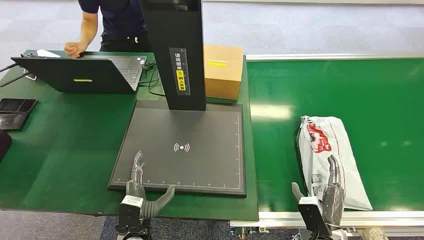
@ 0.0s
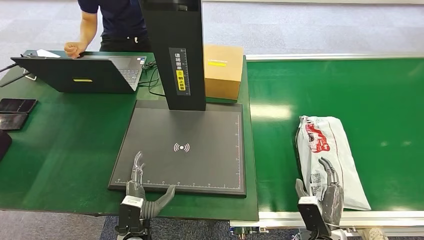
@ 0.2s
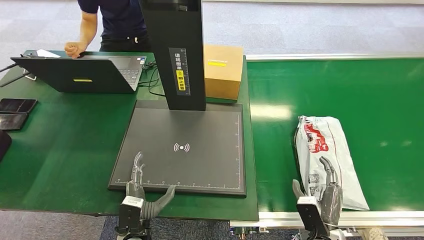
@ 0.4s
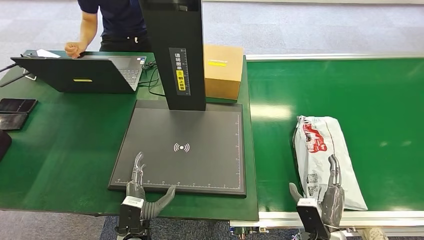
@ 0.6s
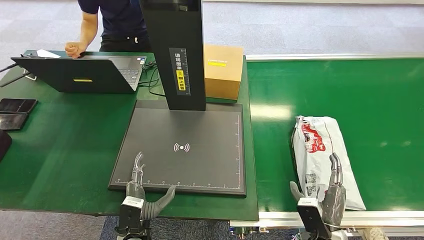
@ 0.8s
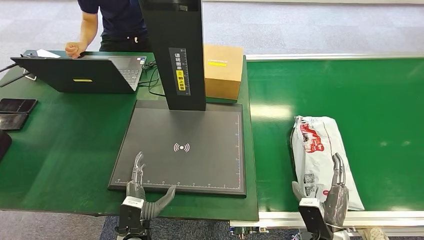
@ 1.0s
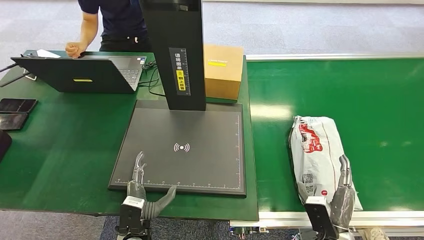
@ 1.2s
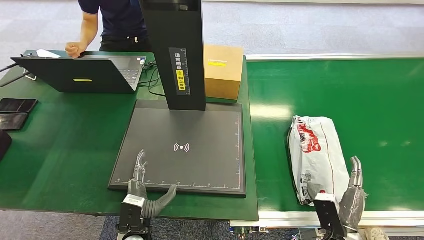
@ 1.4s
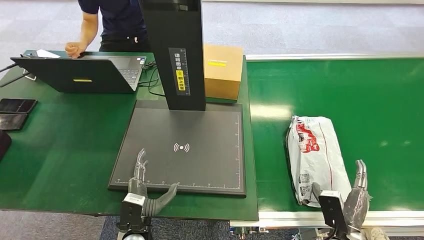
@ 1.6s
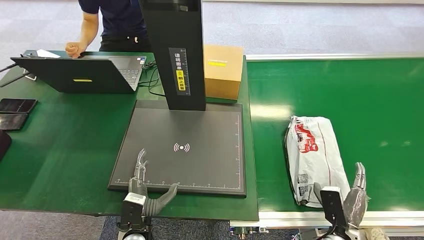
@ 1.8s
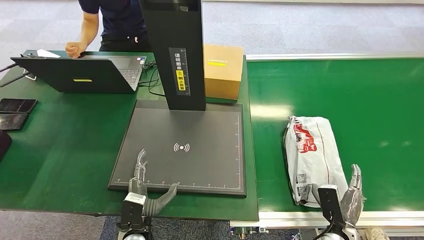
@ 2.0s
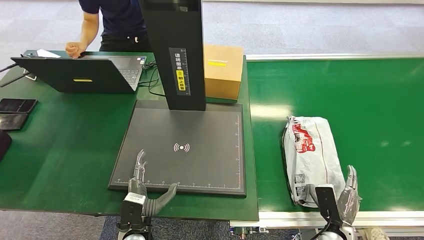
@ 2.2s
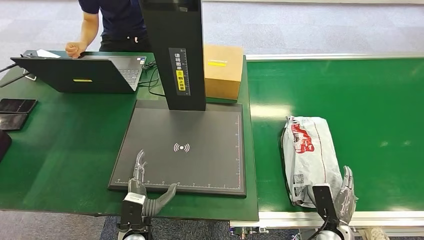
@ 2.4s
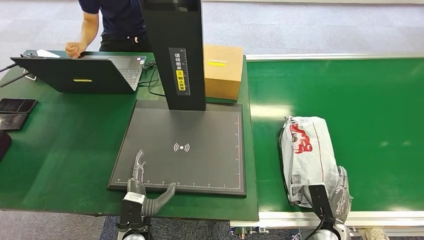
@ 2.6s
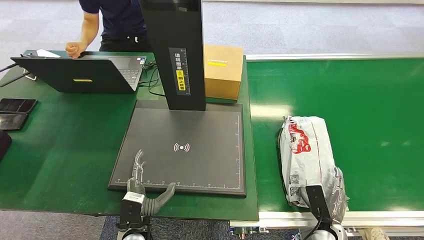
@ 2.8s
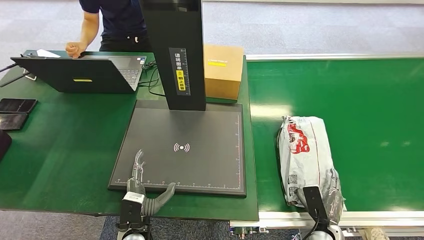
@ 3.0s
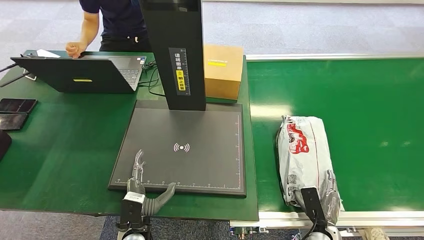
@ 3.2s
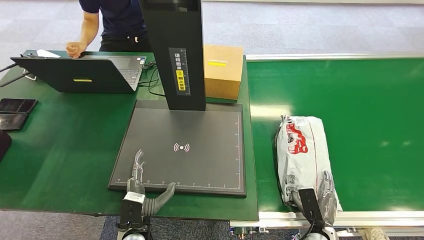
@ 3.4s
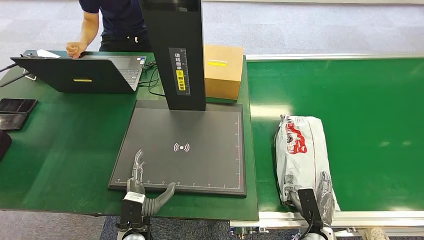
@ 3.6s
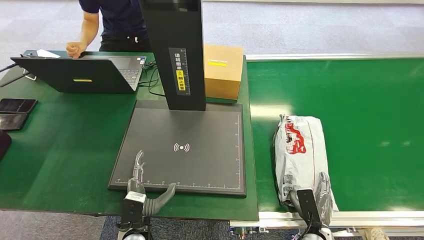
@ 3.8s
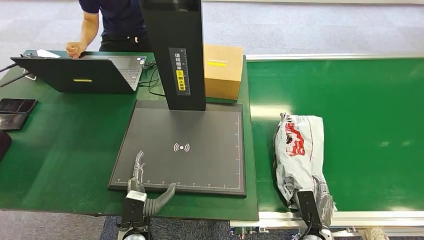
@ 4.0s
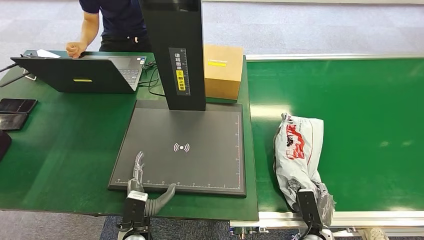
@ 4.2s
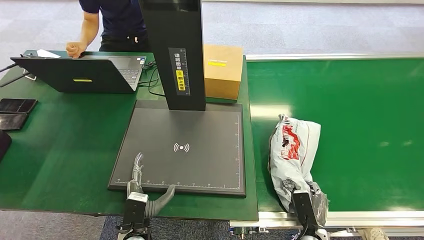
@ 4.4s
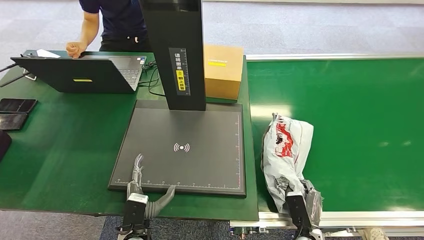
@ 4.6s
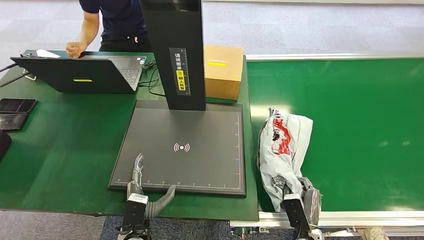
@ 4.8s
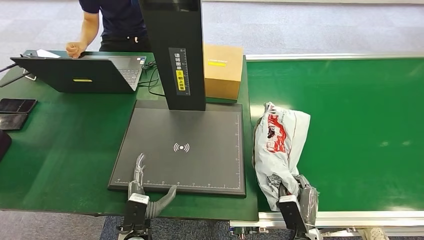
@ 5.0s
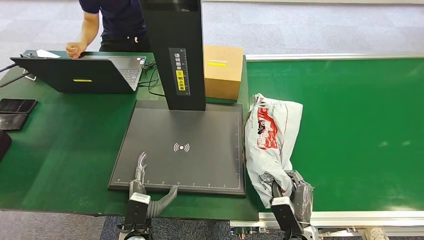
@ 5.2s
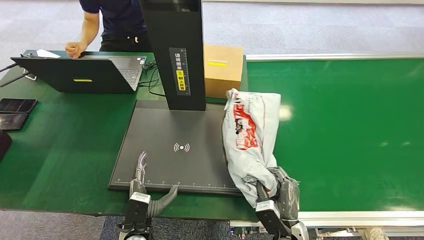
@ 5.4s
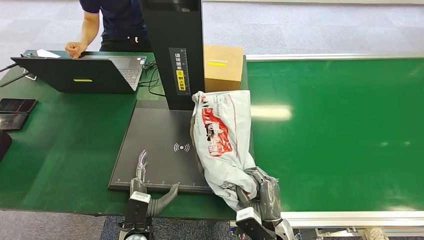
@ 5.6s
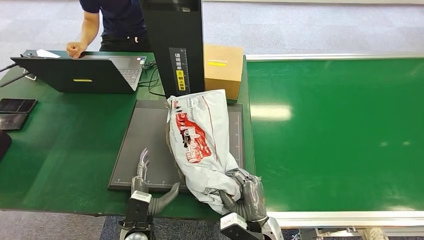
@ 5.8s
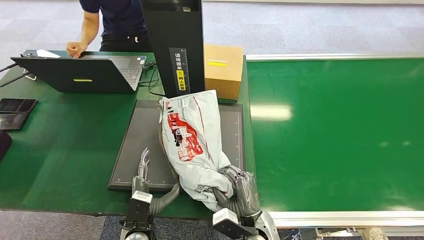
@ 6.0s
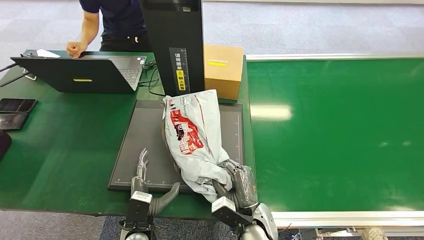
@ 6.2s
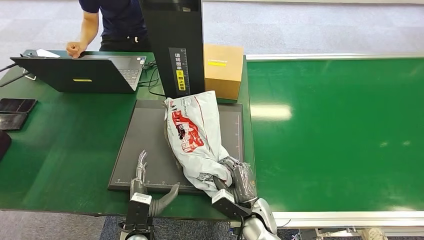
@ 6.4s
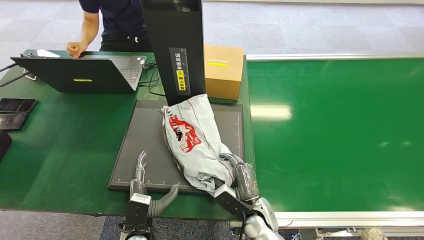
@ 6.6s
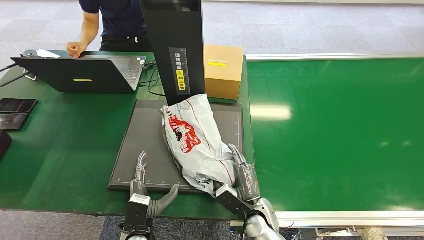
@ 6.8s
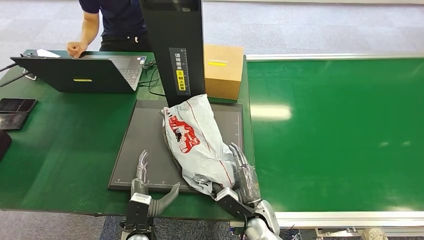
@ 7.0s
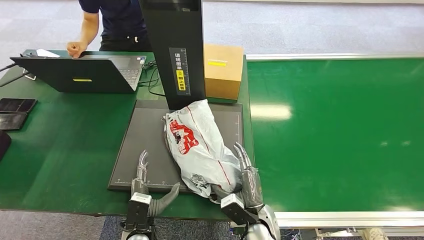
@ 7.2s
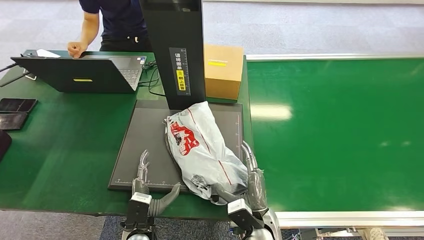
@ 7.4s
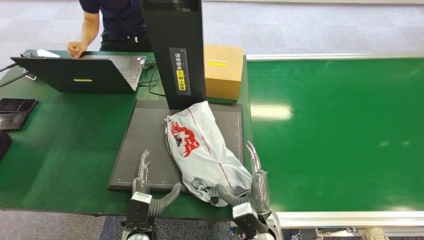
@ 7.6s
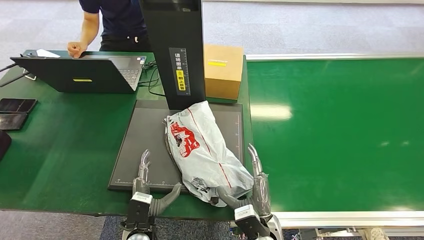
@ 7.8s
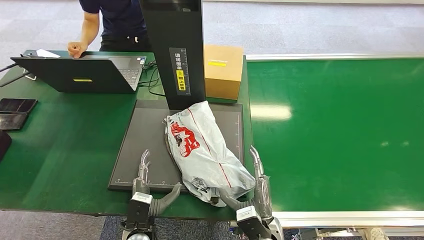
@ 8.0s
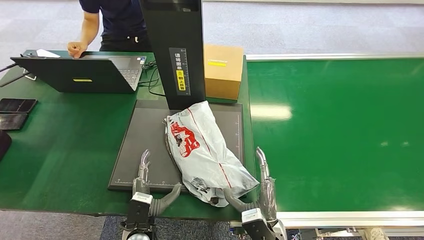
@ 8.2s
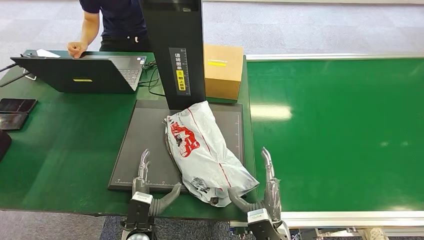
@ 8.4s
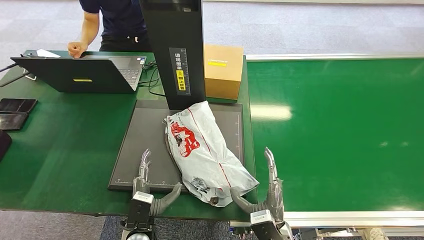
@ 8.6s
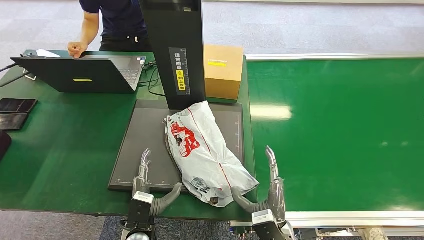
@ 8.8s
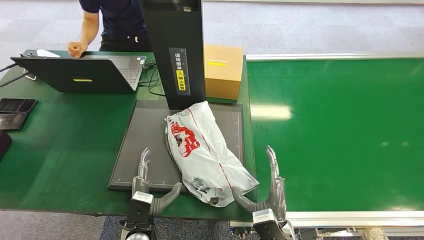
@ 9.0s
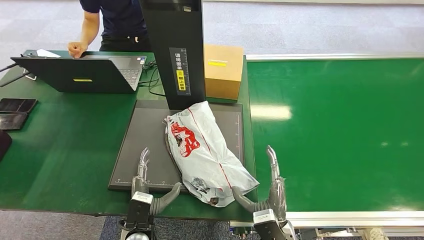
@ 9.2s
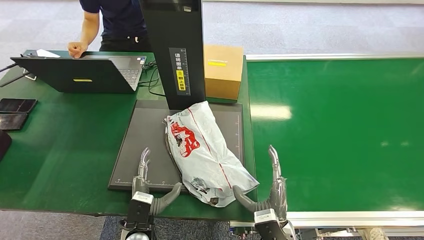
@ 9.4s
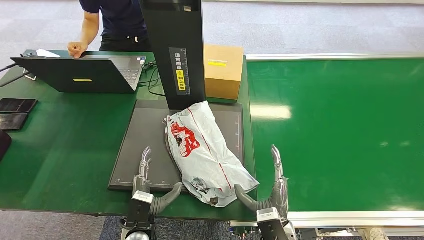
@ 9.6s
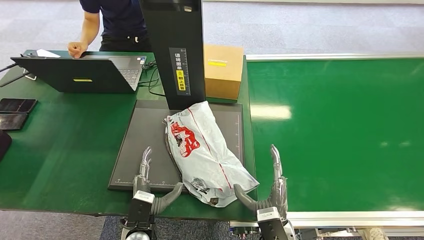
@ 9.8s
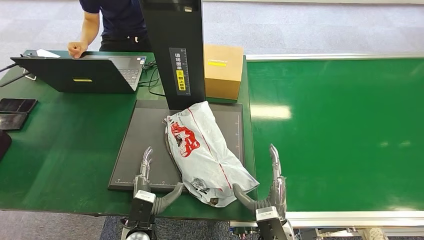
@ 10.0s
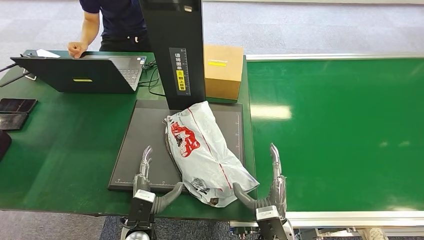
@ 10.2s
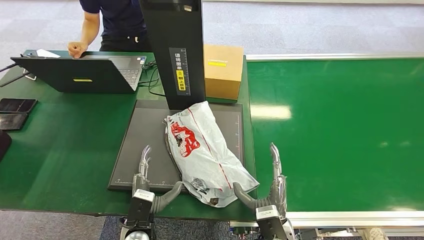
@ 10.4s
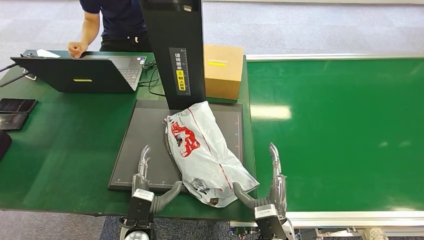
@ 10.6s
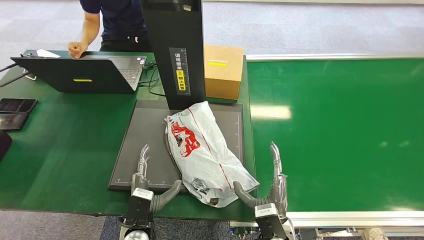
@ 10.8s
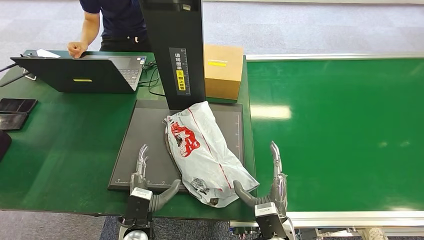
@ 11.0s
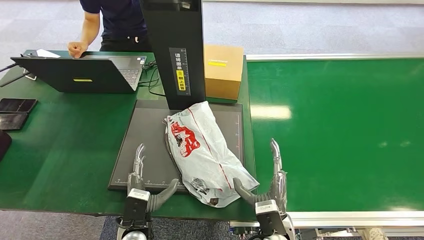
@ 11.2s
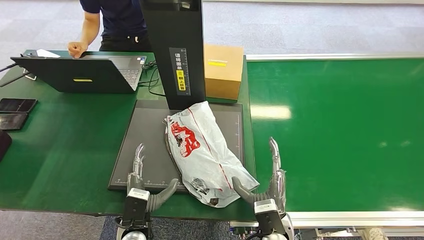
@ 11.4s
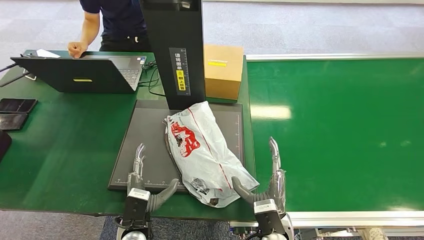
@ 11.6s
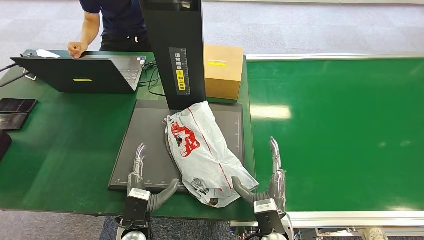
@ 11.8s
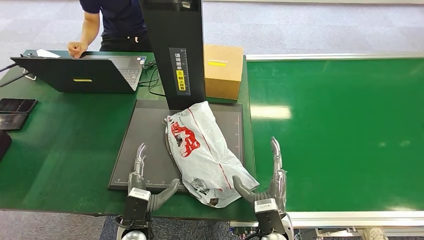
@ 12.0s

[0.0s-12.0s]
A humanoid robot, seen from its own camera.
Step, 0.0s to 5.2s: Pick up the package from the conveyor belt.
Step, 5.4s to 8.4s: Place the package onto the inbound machine.
1.6s to 3.0s: The right hand is displaced downward by roughly 10 cm.
3.0s to 4.4s: There are only small adjustments of the hands.
4.4s to 6.0s: The right hand travels to the left and upward by roughly 20 cm.
7.6s to 9.0s: The hands move only a little.
9.0s to 10.4s: Both hands stay put.
10.4s to 12.0s: The hands stay close to where they were, moving slightly.

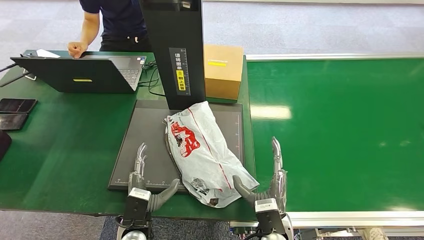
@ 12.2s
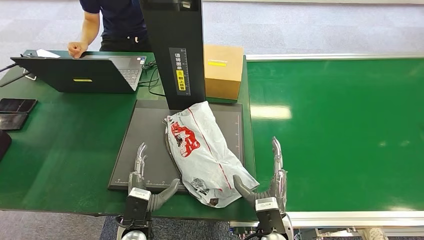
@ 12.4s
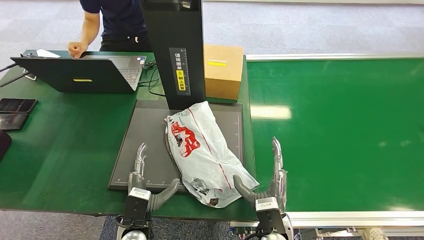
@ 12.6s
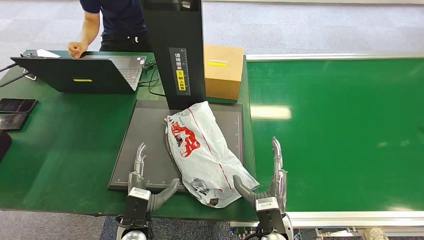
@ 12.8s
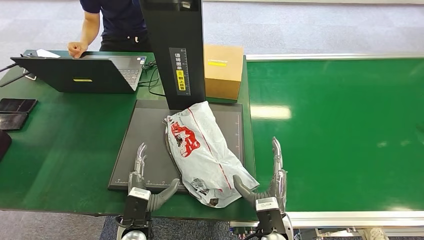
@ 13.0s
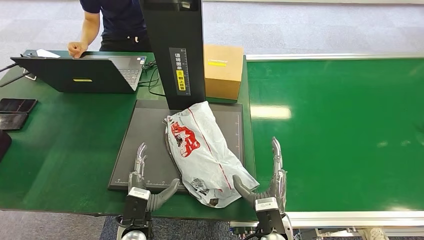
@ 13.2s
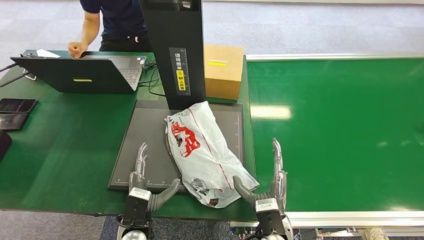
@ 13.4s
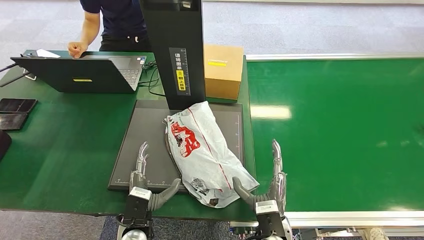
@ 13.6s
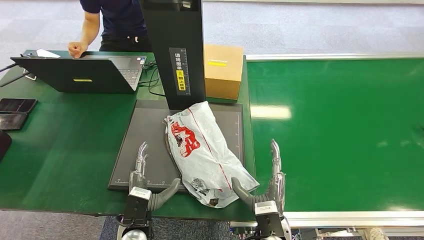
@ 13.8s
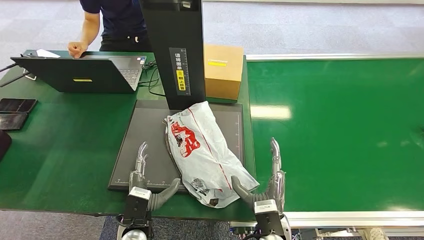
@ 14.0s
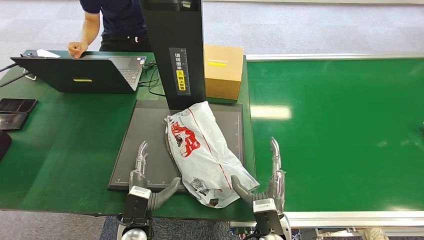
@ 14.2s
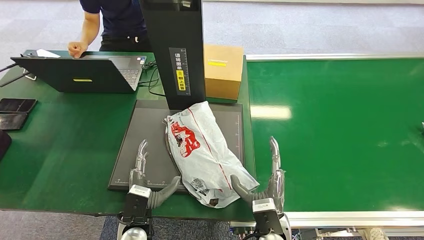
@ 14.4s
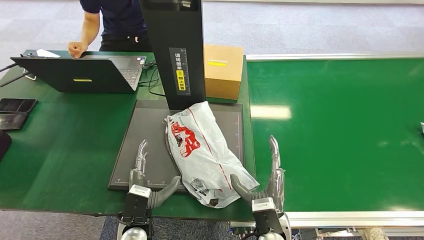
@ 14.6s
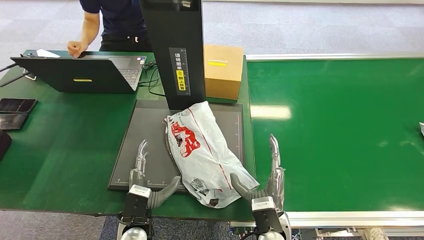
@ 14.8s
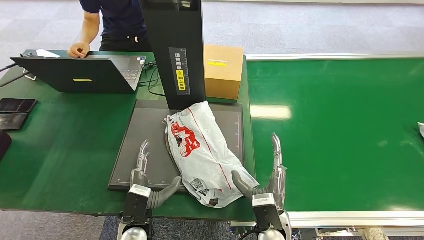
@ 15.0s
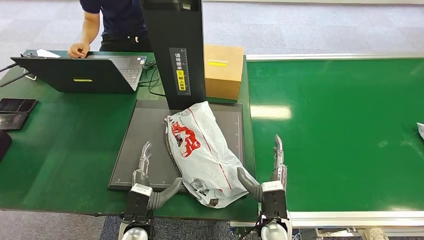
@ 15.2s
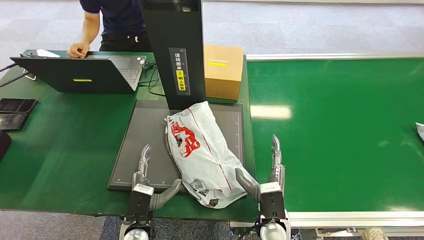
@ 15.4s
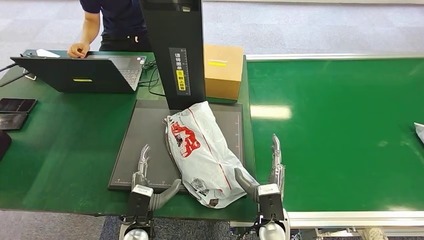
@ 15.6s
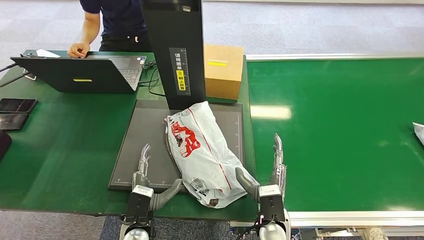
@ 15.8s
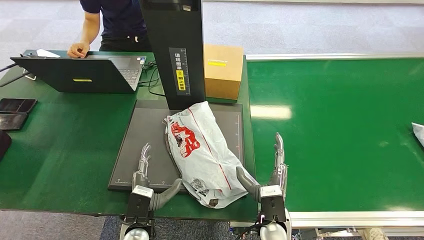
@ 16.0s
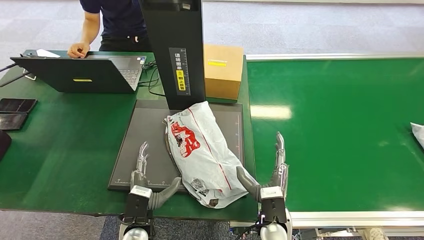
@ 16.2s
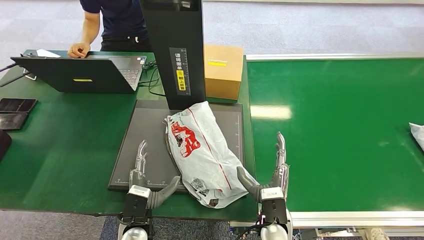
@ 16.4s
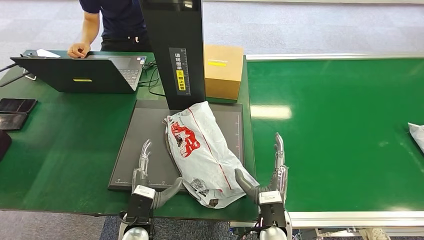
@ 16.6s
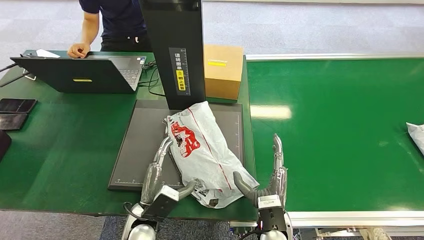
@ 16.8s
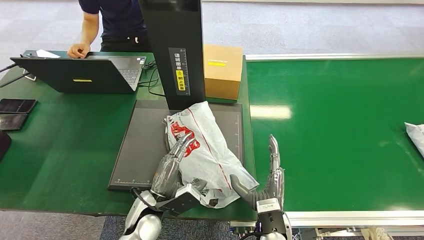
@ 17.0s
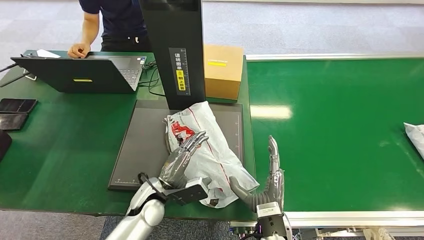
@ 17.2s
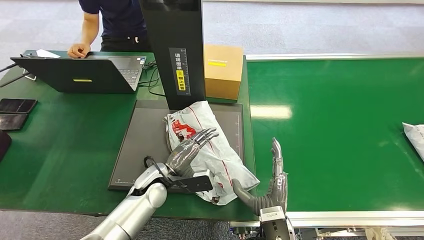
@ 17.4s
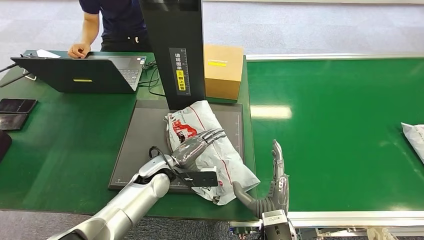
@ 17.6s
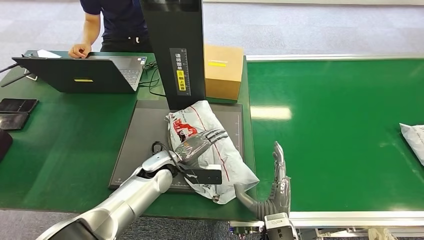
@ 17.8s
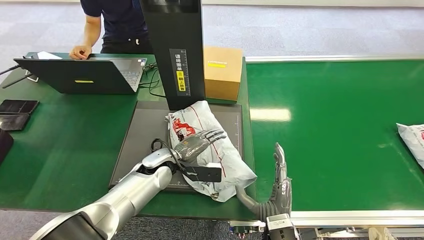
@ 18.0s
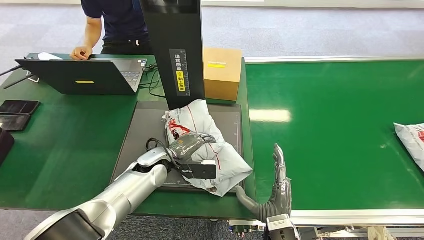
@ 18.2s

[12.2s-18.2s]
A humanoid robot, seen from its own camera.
12.2s to 13.8s: Both hands stay about where they are.
13.8s to 16.6s: The hands make only small movements.
